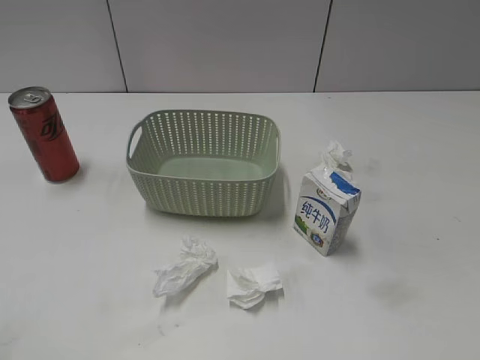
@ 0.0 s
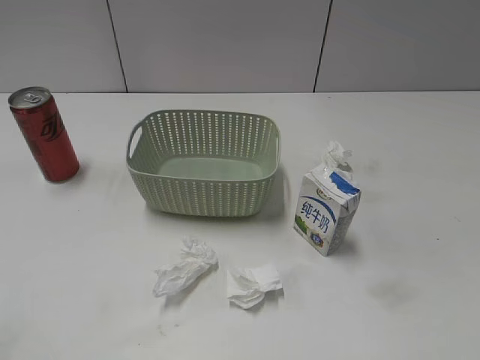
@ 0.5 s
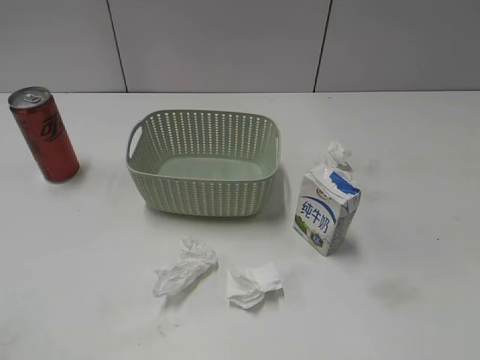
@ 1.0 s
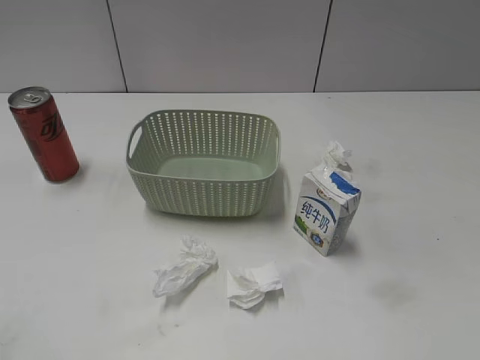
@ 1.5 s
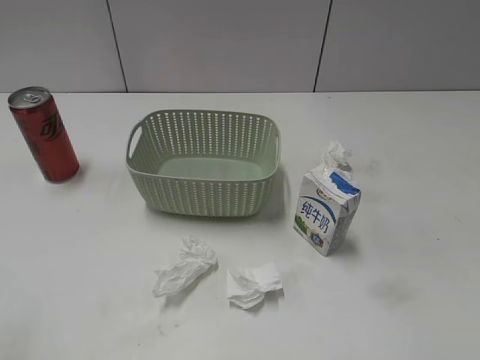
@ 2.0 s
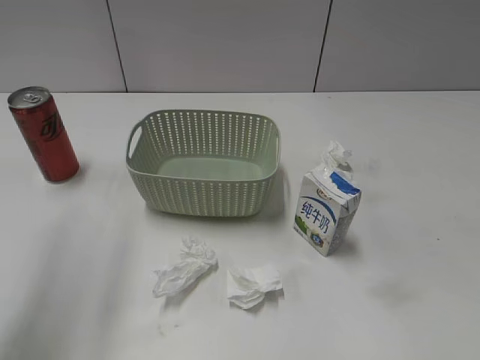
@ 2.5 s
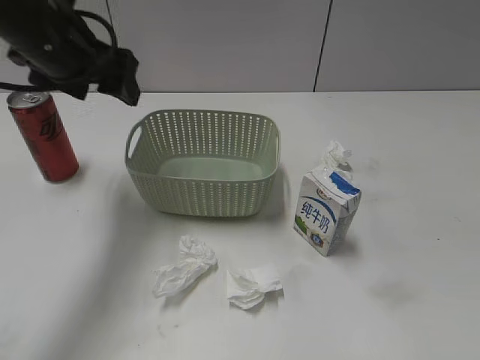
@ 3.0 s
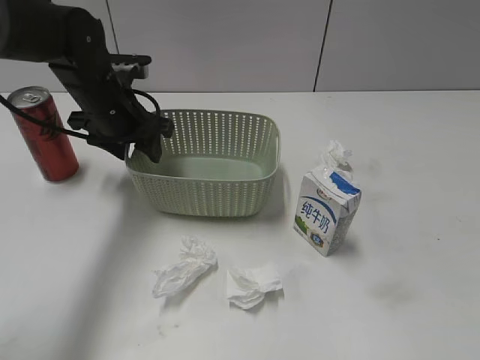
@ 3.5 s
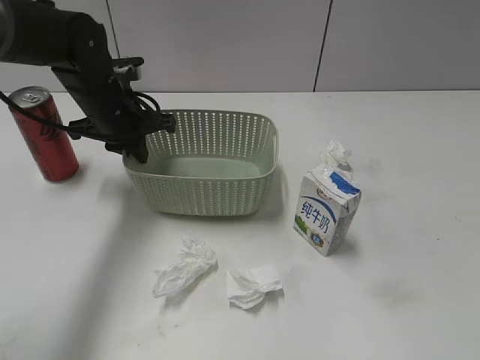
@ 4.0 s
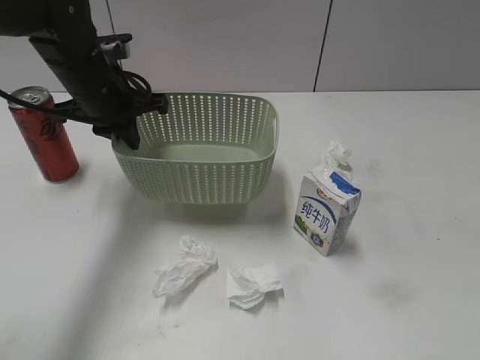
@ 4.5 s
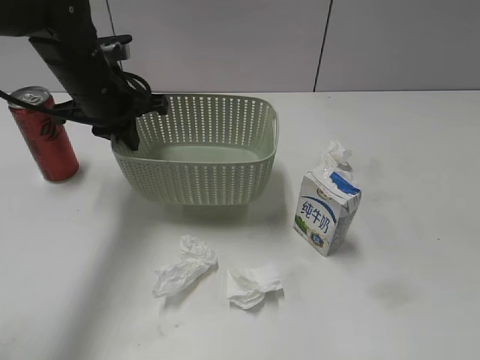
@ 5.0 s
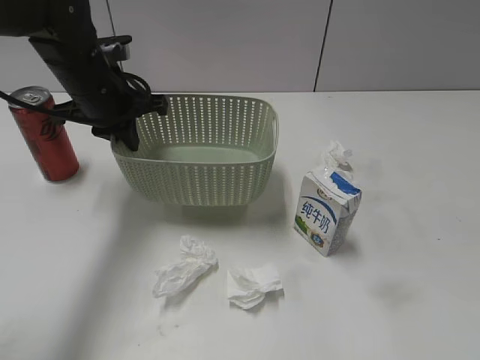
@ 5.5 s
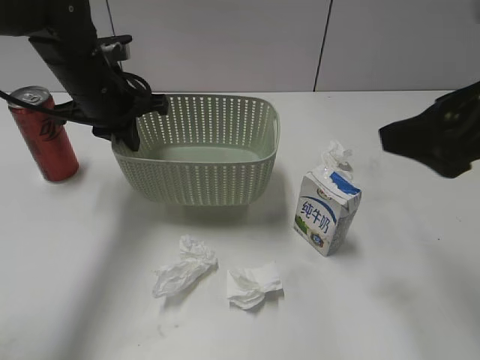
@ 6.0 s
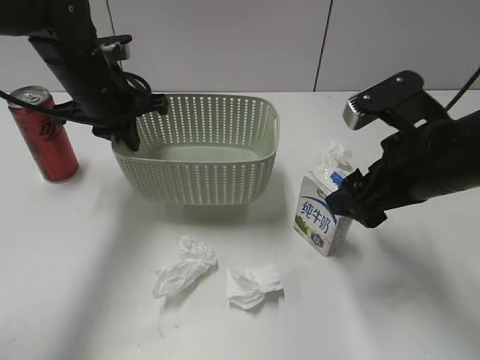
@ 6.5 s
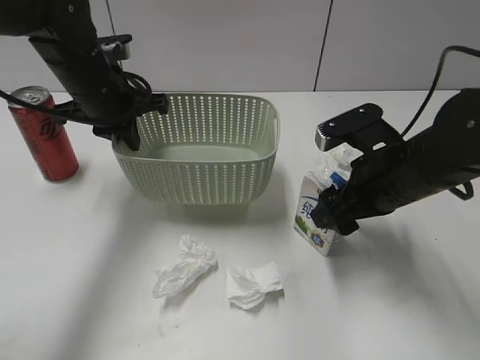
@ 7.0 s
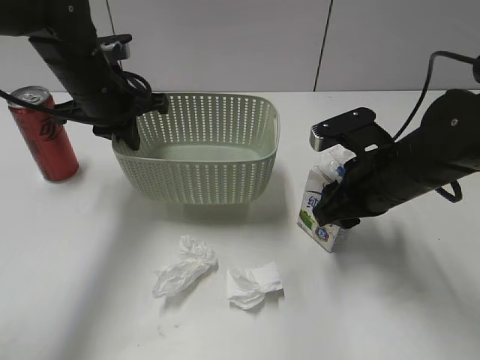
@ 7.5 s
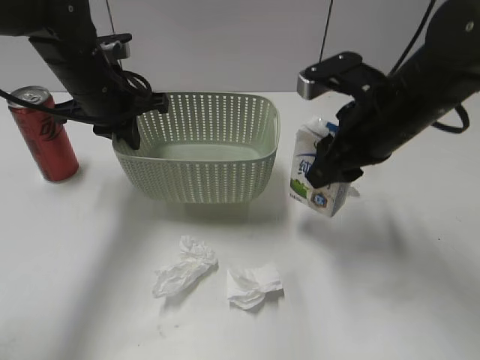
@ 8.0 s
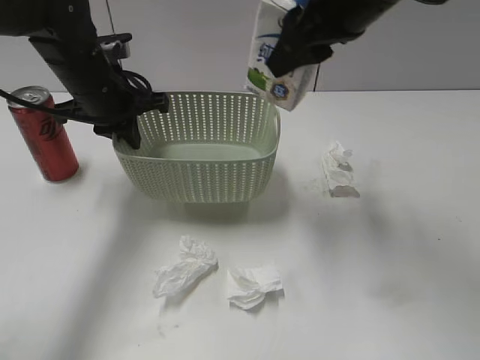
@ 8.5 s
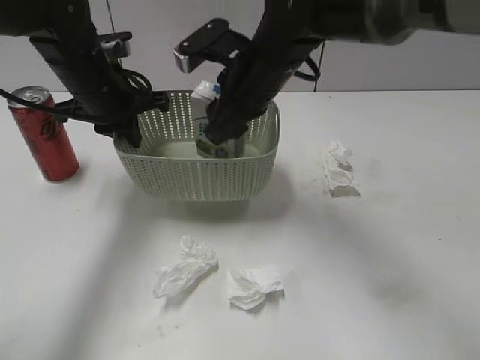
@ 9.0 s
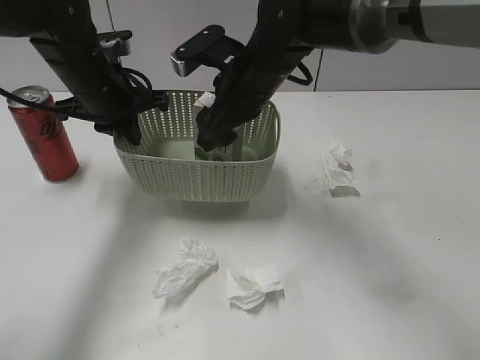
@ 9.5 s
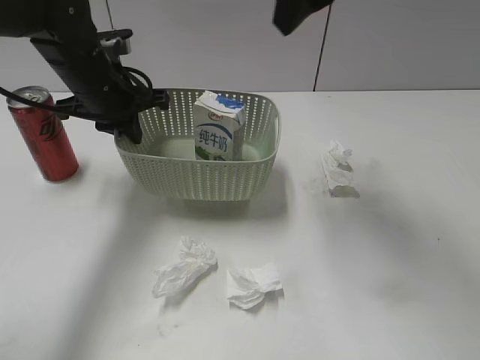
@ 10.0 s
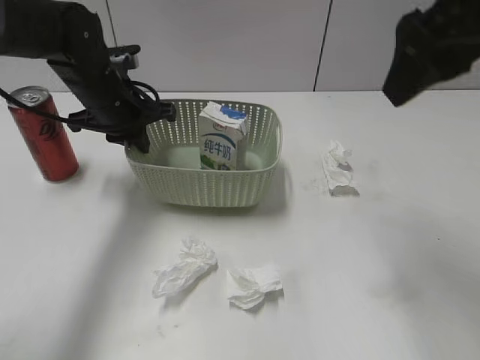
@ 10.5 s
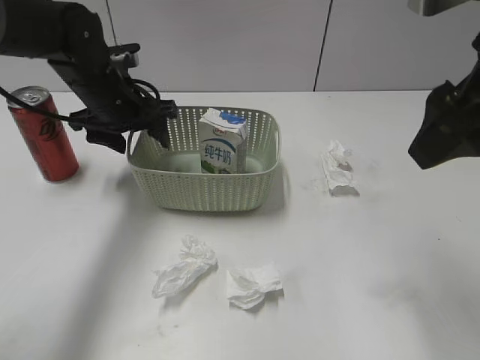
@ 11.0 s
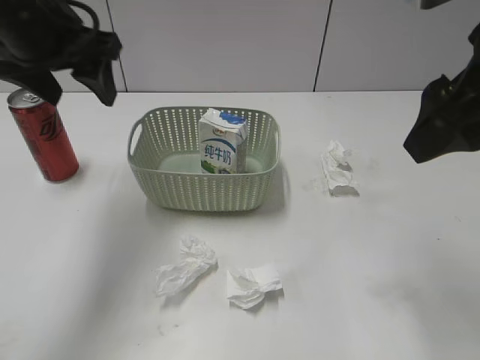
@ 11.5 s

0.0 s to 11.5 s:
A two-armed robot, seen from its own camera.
Step, 3.0 to 3.5 s: Grasp the basket with left gripper.
Step, 4.0 to 4.5 s: Lift the basket with left gripper.
Step, 5.0 to 7.0 s: Grasp the milk with right gripper.
Step, 7.5 to 9.5 s: Place the milk in the basket with right gripper.
2.0 to 4.0 s: The left gripper moves forward, approximately 40 cm, and closes.
4.0 to 6.0 s: The right gripper is displaced forward by roughly 15 cm.
6.0 to 7.5 s: The right gripper shifts some 25 cm downward, forward and to the left, and closes up.
7.5 to 9.5 s: The right gripper travels to the left and forward by approximately 20 cm.
9.5 to 11.5 s: The left gripper opens. The right gripper moves to the right, backward and upward, roughly 30 cm, and opens its fingers.

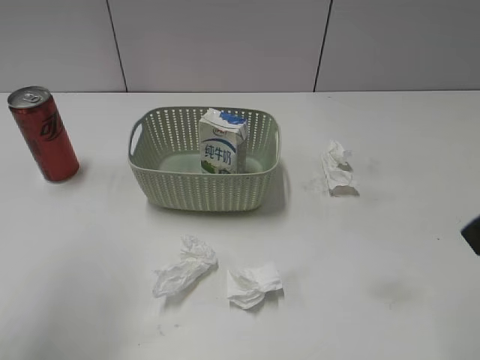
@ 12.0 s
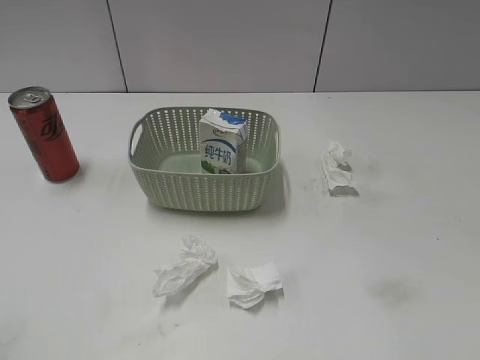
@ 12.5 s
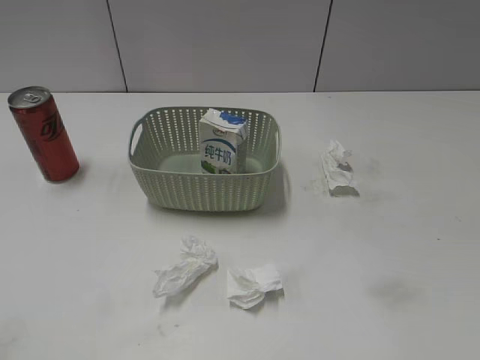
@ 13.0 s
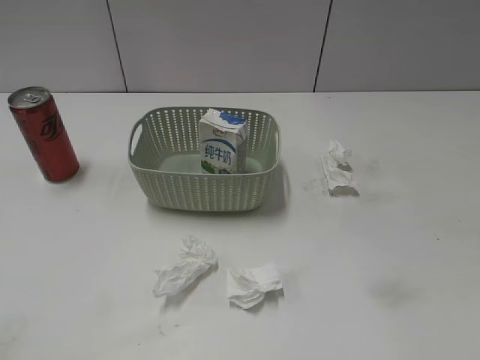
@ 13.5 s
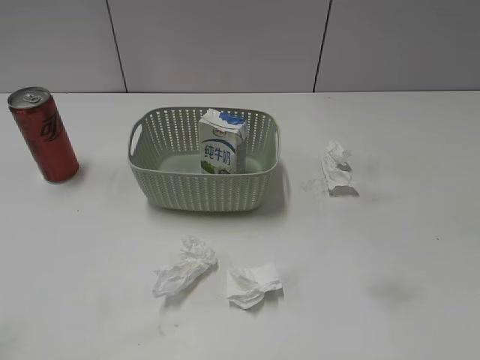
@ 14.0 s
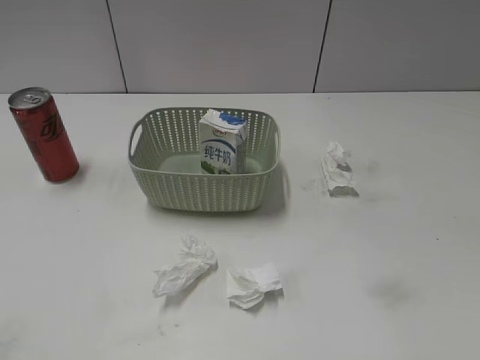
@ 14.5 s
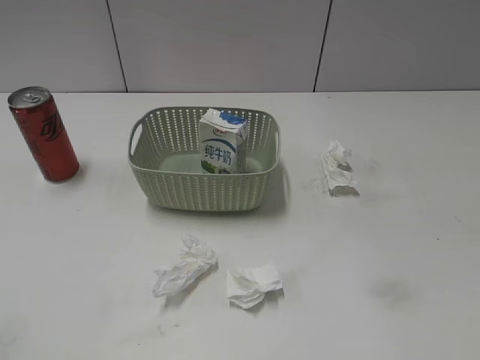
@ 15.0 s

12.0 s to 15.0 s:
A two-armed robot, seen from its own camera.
12.0 to 13.5 s: The left gripper shifts roughly 25 cm backward and downward.
